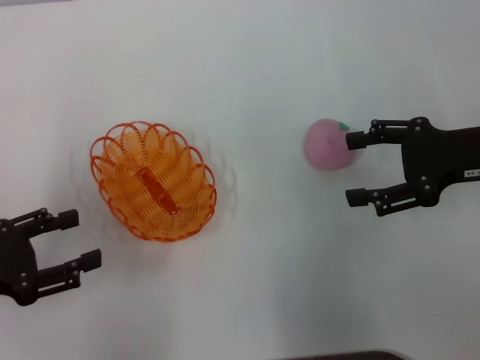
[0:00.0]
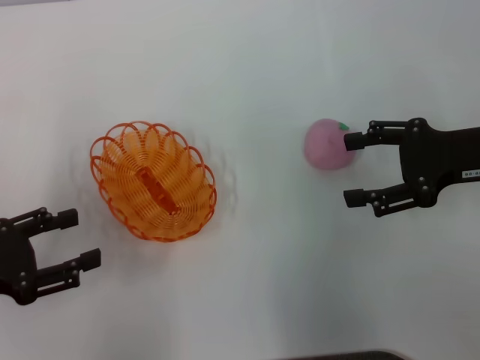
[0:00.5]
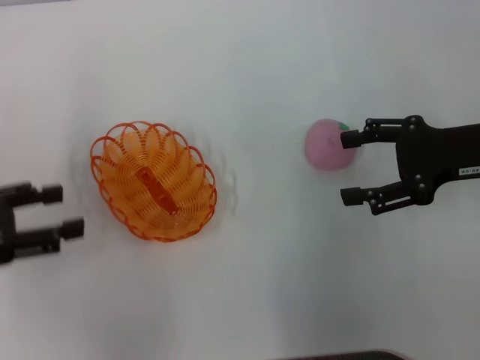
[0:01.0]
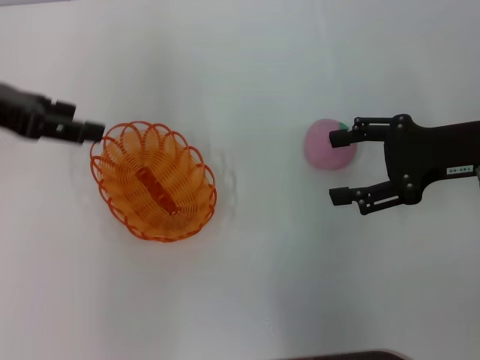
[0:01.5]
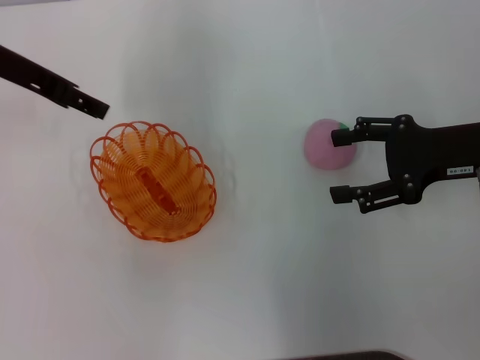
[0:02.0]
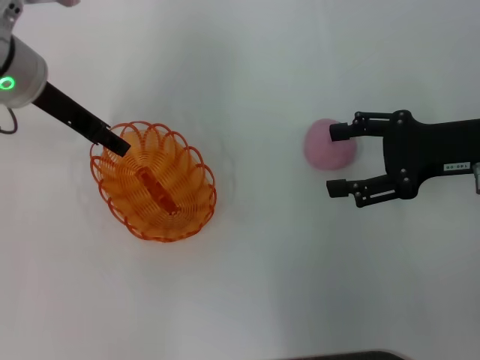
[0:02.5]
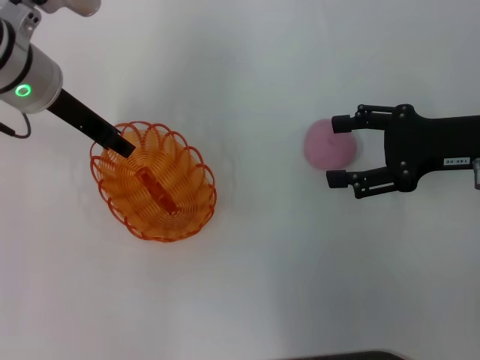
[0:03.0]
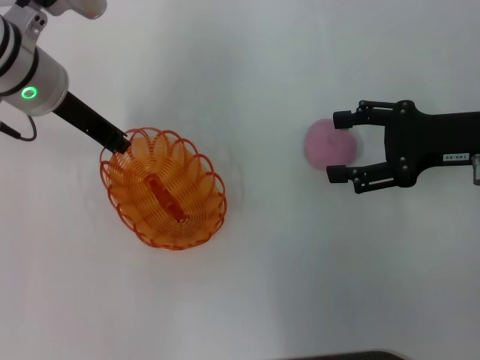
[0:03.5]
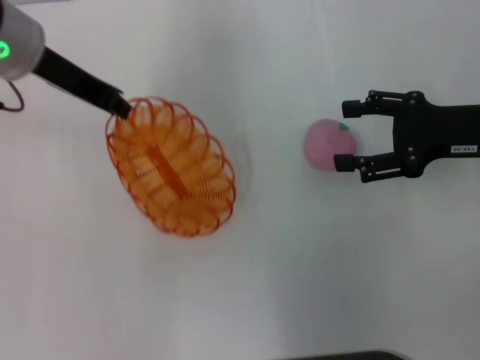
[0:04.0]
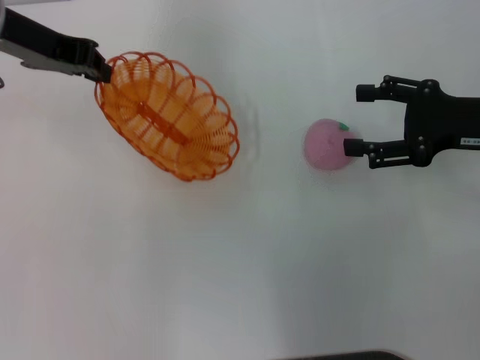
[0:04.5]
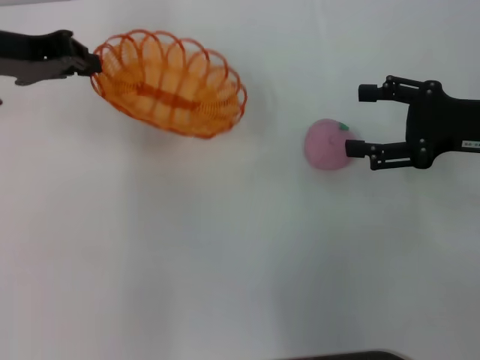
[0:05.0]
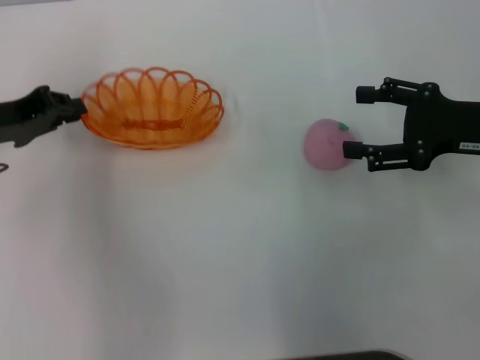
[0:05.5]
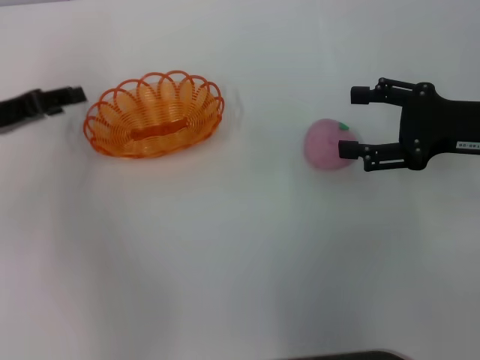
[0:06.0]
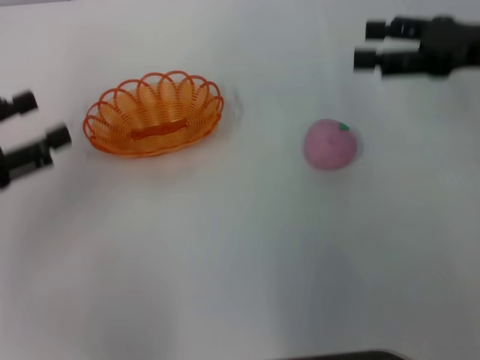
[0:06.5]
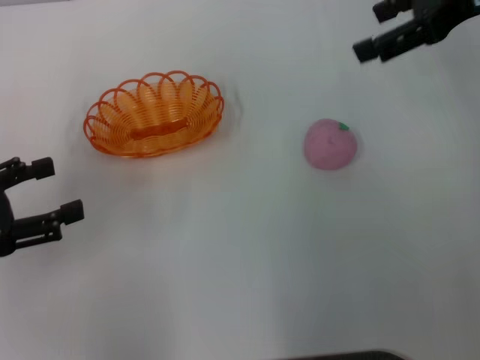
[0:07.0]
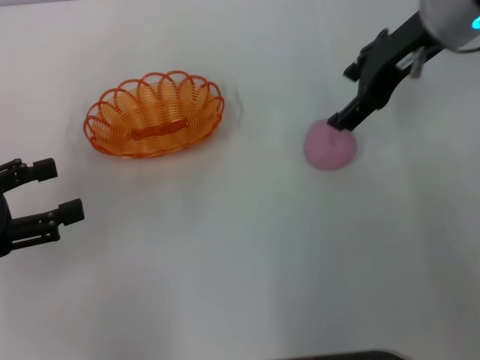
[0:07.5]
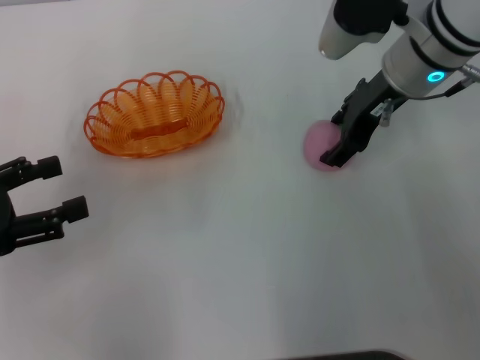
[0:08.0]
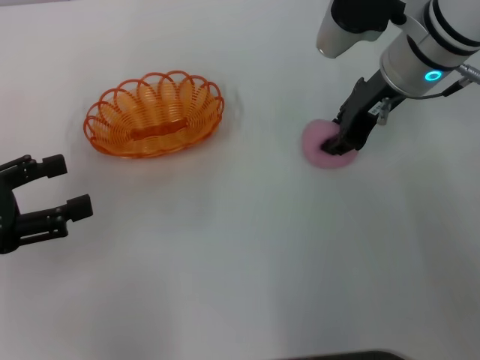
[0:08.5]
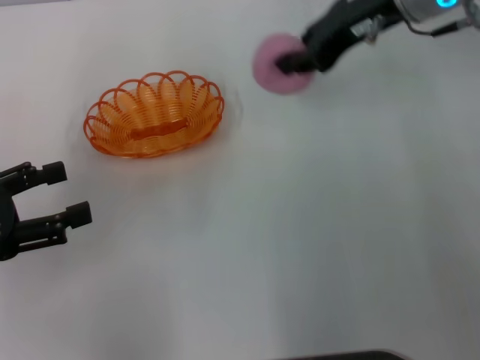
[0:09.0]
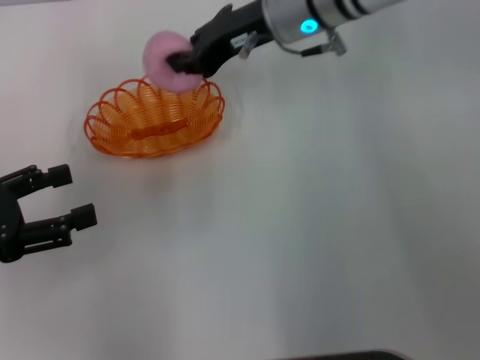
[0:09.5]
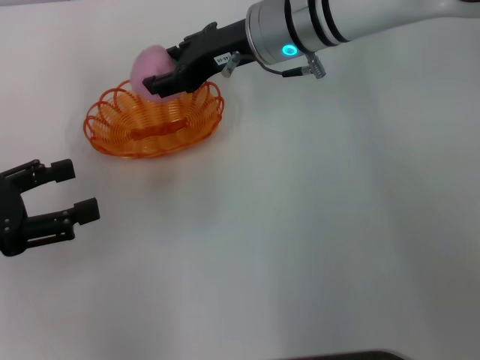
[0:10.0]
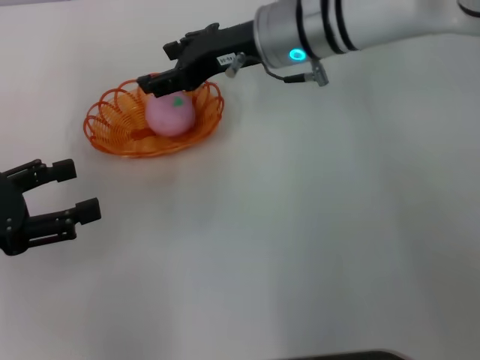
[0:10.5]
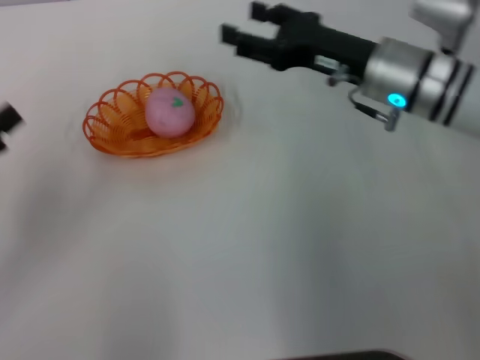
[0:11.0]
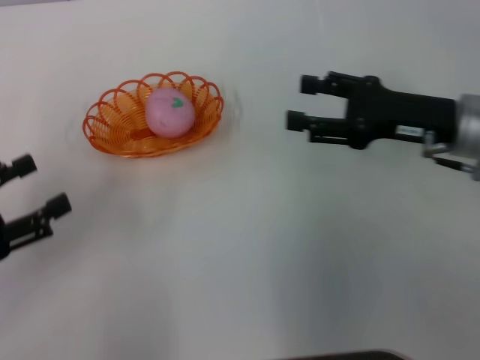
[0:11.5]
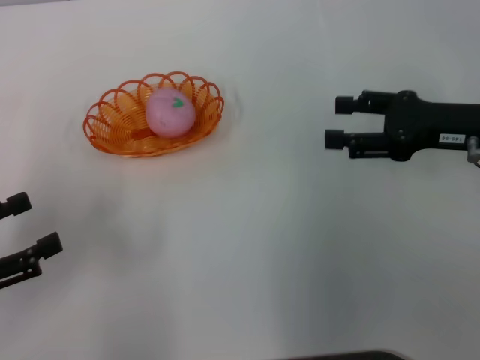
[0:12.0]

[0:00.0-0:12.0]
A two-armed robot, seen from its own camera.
Step, 0:00.0 to 0:04.0: Pick up the basket with the left gripper.
Step, 0:04.5 to 0:06.0: Place the basket in the center of view with the left gripper.
Step, 0:06.5 to 0:08.5: Pick up the peach with the right gripper.
Step, 0:09.0 to 0:10.5: Place the peach into the basket with the right gripper.
0:00.0 to 0:02.0: The left gripper goes about 25 cm forward, upward and to the right.
0:02.0 to 0:04.0: The left gripper closes its fingers.
0:04.0 to 0:06.0: The left gripper is displaced to the left, downward and backward by some 15 cm, and opens up.
0:06.0 to 0:08.0: The right gripper is displaced to the left and forward by approximately 15 cm, and moves about 15 cm upward and comes back. Meanwhile the left gripper travels backward by about 10 cm, and opens its fingers.
0:08.0 to 0:10.0: The right gripper moves to the left, approximately 10 cm, and closes its fingers.
0:10.0 to 0:12.0: The right gripper moves to the right and backward, roughly 25 cm, and opens up, while the left gripper ends up approximately 5 cm from where it was.

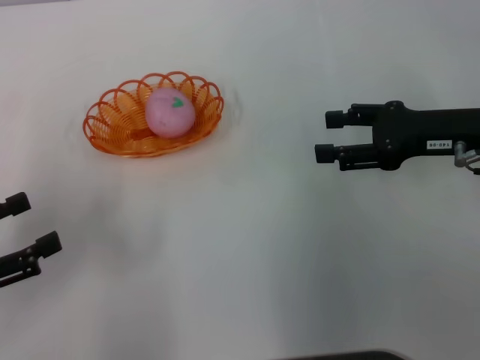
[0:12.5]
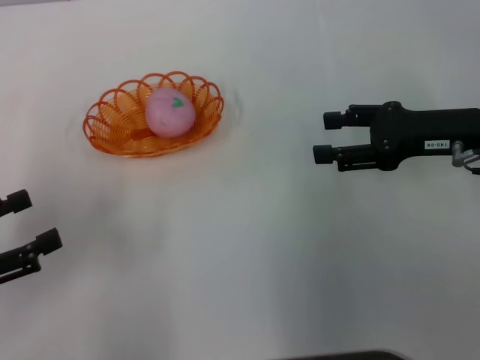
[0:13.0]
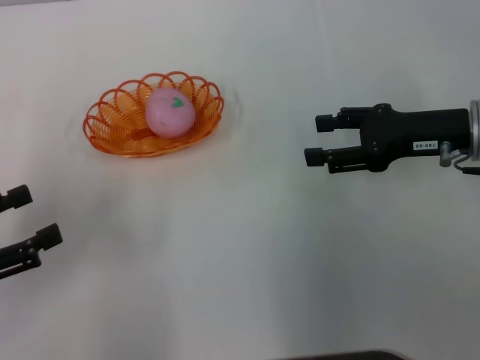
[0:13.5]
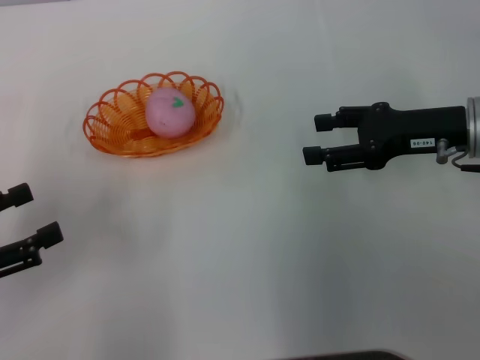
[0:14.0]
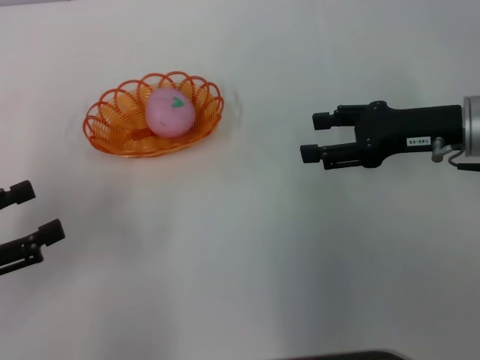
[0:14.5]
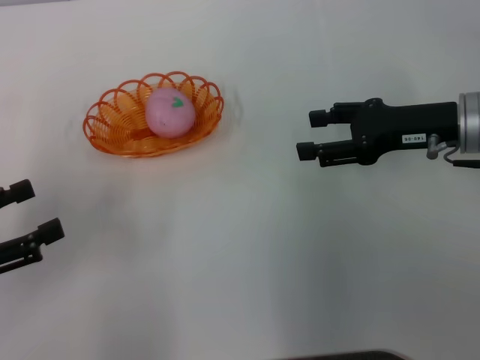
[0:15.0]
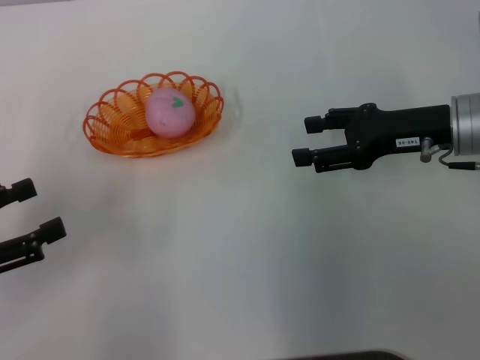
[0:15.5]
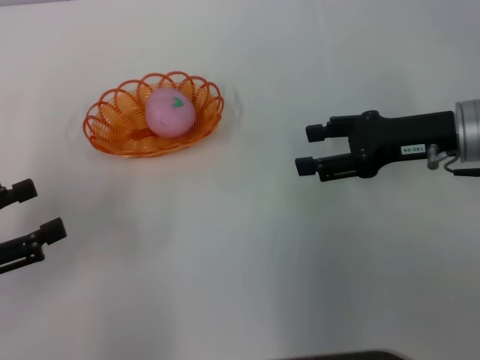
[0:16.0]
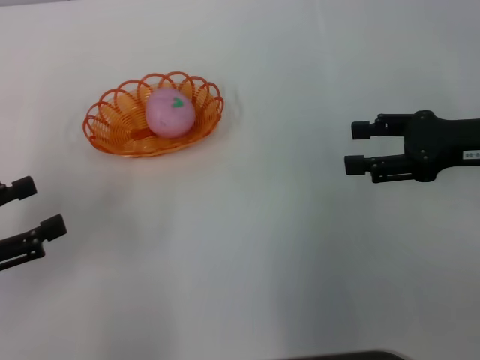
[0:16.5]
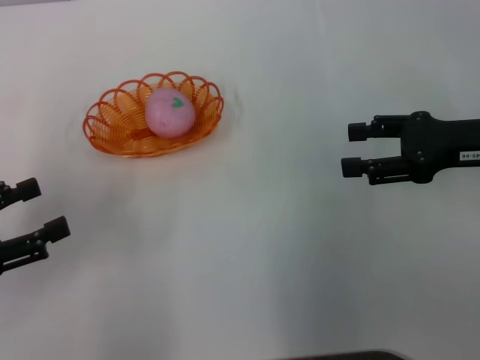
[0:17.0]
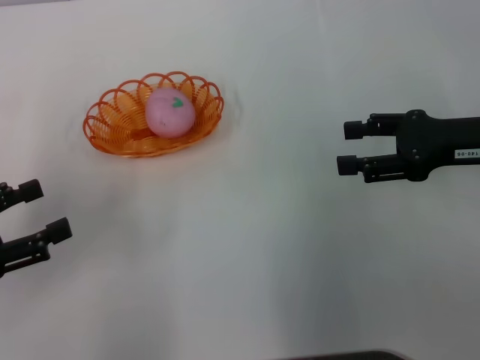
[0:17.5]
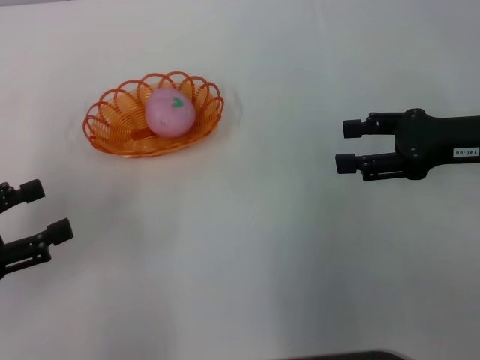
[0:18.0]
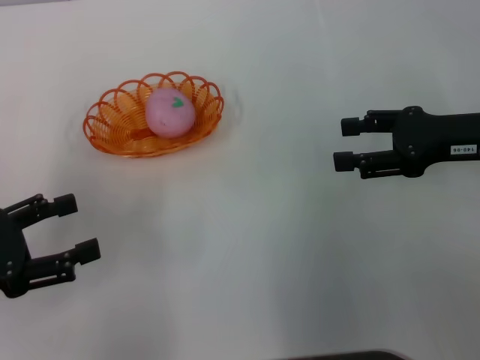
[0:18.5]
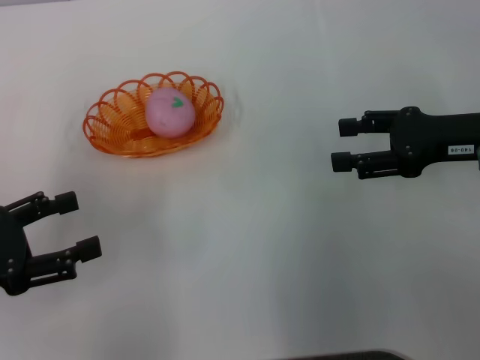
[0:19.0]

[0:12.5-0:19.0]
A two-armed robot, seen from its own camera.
0:12.5 to 0:19.0: There are only small adjustments of the grippers.
